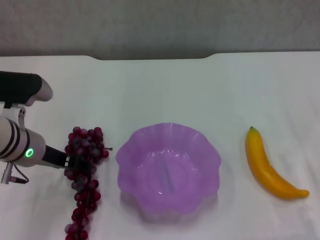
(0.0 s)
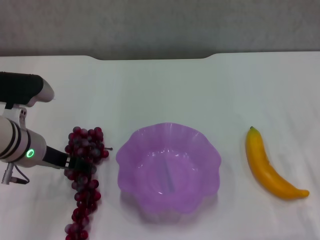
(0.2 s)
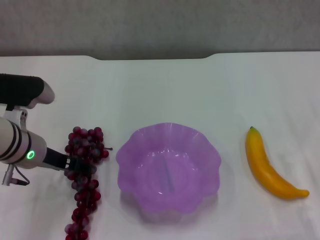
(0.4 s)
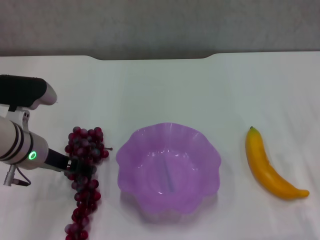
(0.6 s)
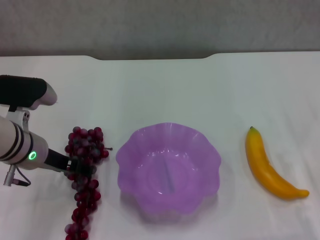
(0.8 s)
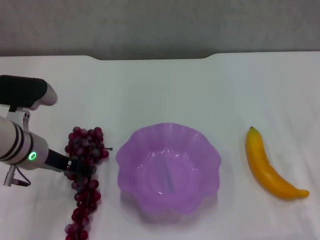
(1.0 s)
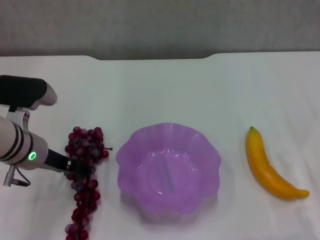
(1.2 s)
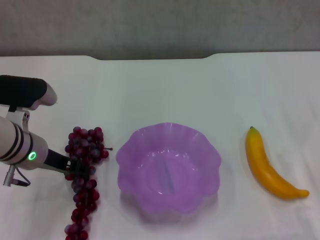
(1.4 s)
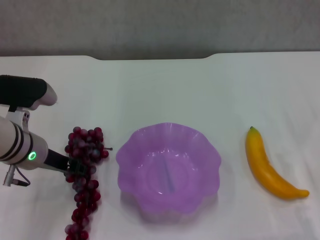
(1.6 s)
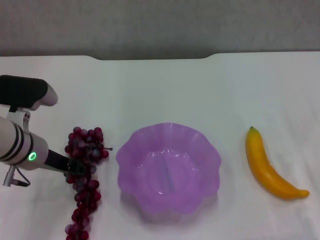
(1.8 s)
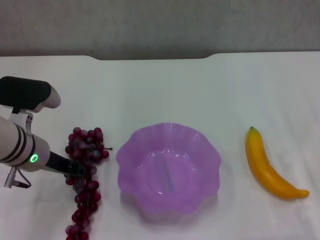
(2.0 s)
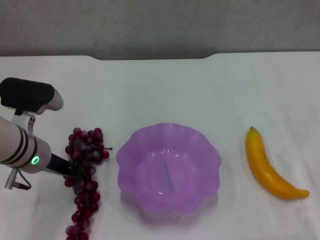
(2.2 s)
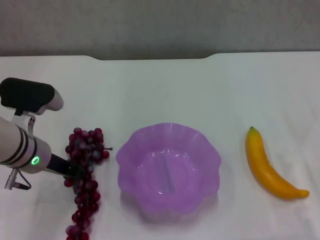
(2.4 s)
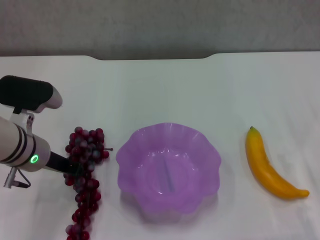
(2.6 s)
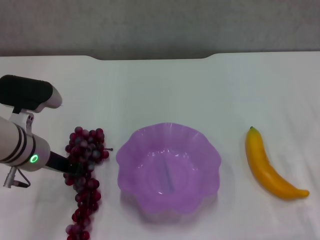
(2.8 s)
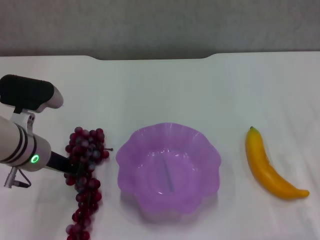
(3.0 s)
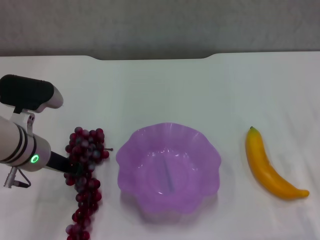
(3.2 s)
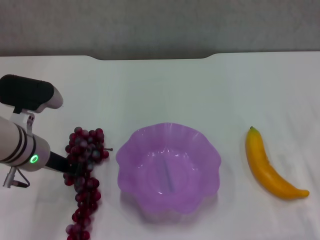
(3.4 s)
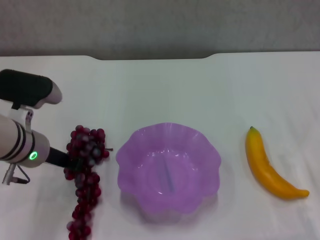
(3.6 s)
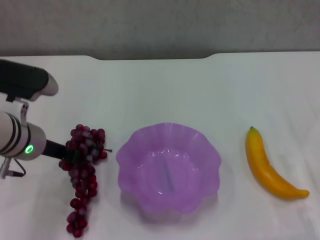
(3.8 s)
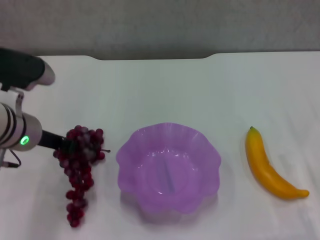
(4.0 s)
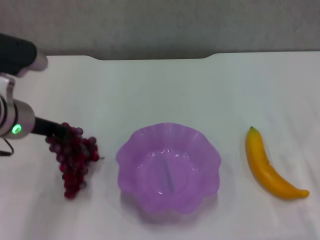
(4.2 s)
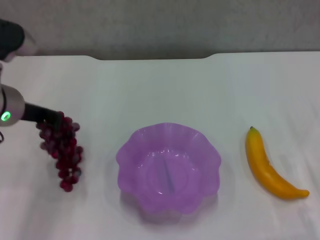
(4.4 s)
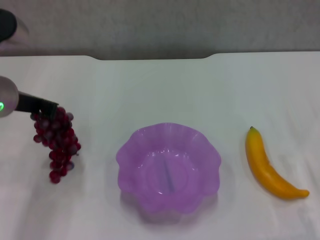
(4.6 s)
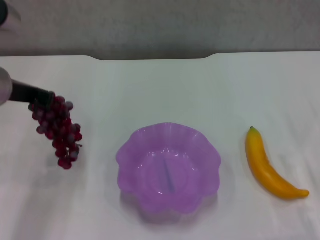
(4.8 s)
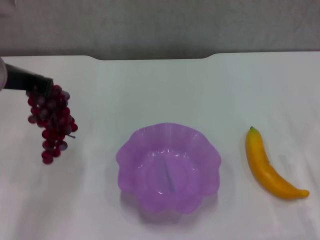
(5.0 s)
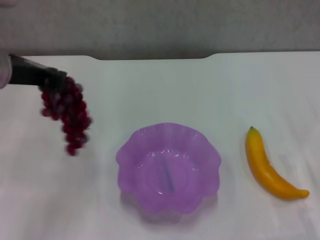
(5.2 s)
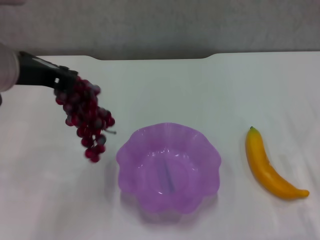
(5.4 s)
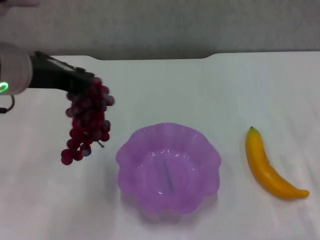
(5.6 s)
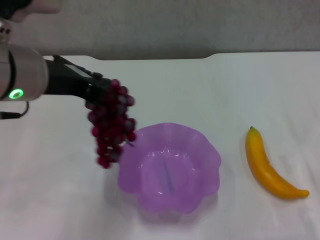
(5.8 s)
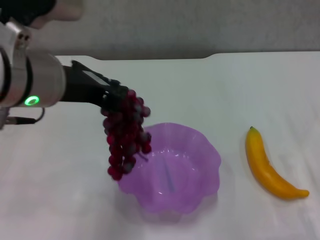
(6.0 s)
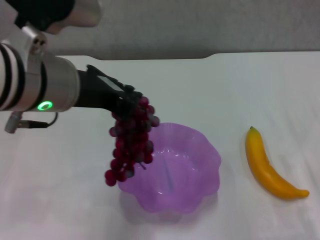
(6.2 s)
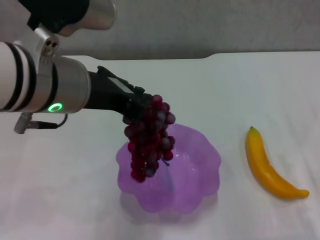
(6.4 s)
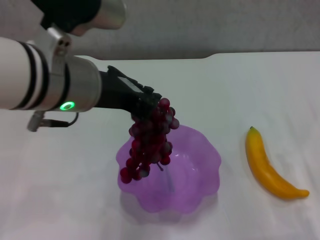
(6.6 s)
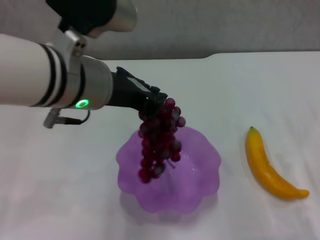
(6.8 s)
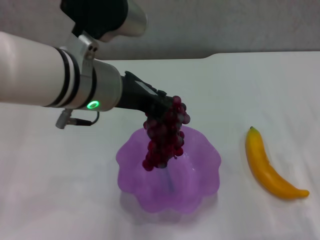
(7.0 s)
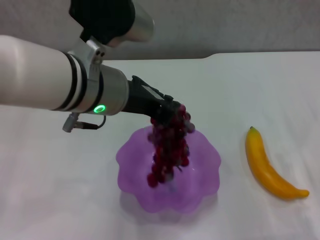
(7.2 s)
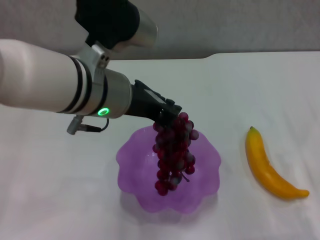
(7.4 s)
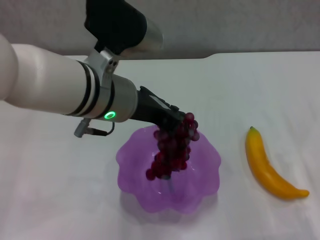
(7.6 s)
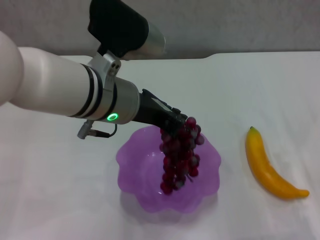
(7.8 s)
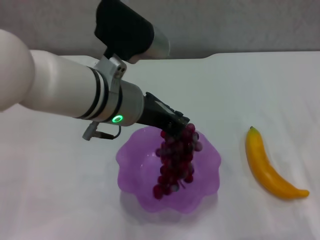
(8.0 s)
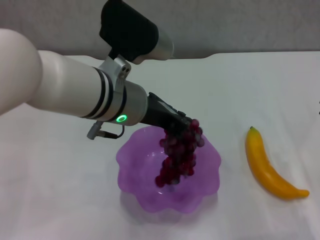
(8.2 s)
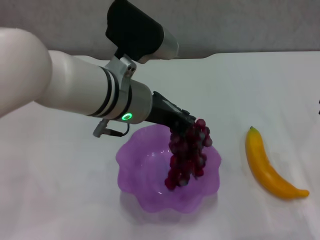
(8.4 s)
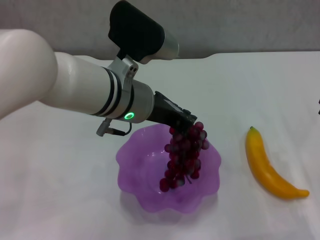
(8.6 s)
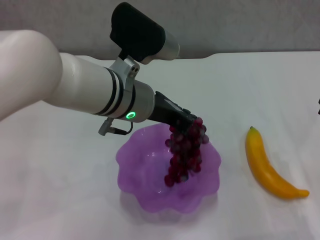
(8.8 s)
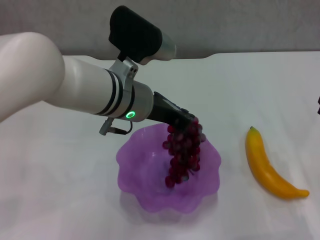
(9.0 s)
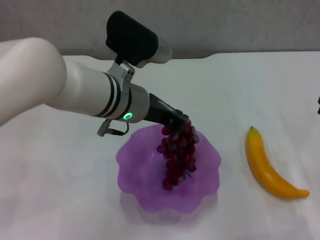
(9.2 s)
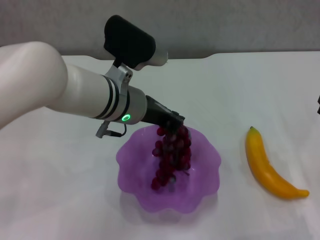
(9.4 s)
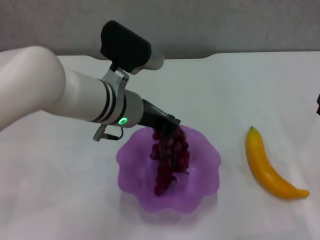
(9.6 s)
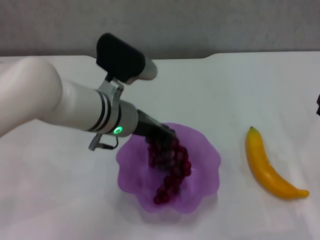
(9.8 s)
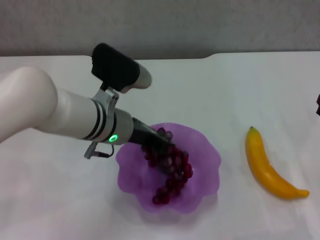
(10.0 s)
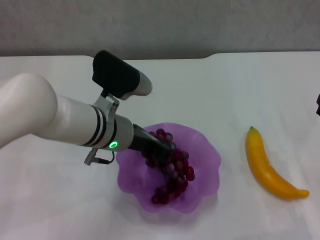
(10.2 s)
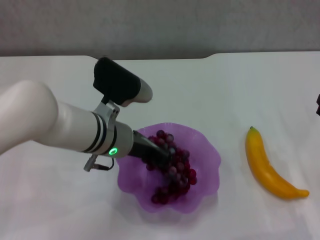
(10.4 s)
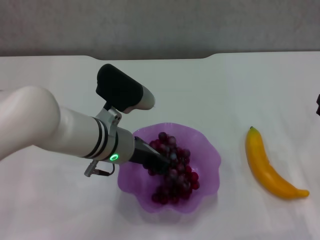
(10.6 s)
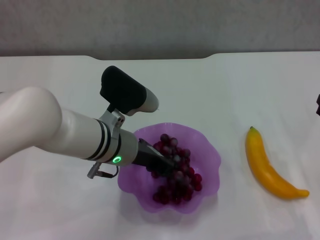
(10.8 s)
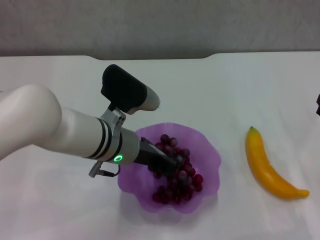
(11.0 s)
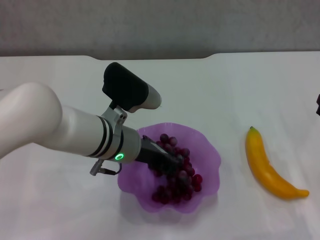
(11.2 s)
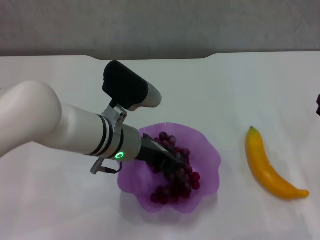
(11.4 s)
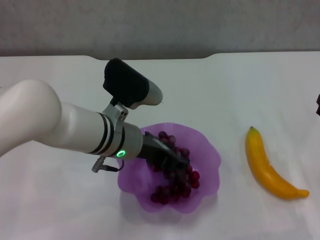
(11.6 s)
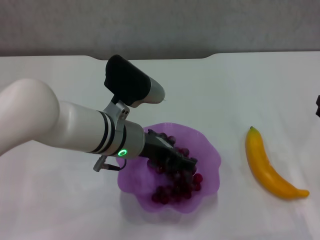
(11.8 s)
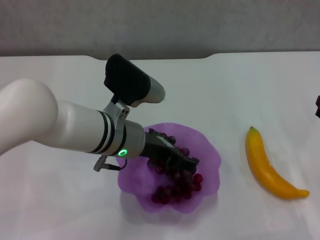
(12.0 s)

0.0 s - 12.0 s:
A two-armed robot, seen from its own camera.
Step, 0.0 s - 3.0 s: Grasp the grape with left gripper.
0.0 s - 1.6 s: Neither gripper changes place.
1.6 s - 3.0 s: The left gripper closes up.
3.0 s - 4.4 s: The left gripper travels upward by some 10 cm.
4.4 s - 6.0 s: The left gripper moves upward, to the right and backward, about 10 cm.
6.0 s - 7.6 s: The left gripper goes some 5 cm to the right.
7.6 s - 9.0 s: The left gripper shifts by some 5 cm.
9.0 s - 10.4 s: The left gripper heads downward, covering roughly 5 cm.
10.4 s - 12.0 s: The left gripper opens its fingers.

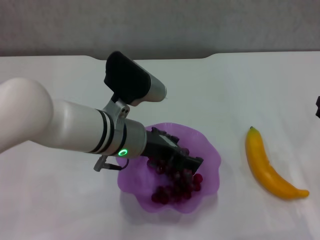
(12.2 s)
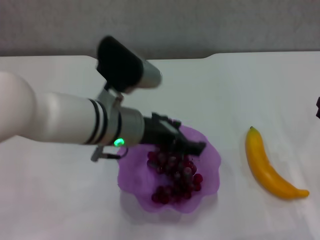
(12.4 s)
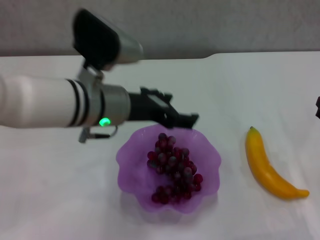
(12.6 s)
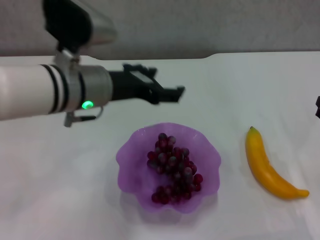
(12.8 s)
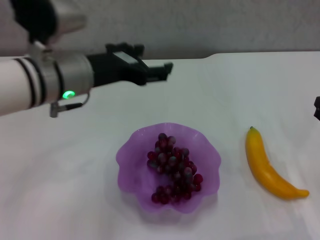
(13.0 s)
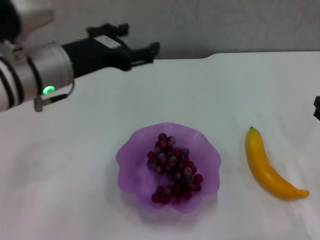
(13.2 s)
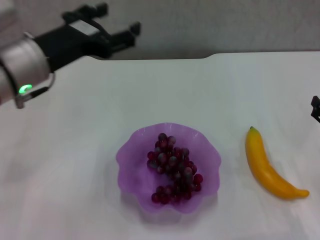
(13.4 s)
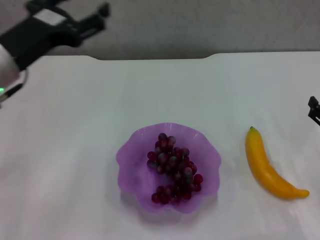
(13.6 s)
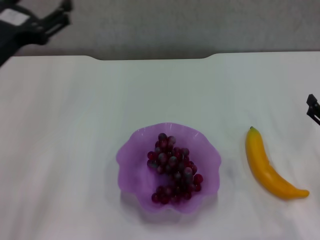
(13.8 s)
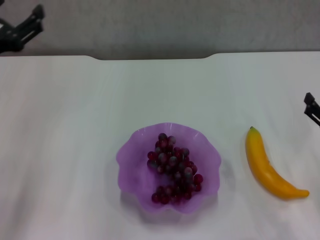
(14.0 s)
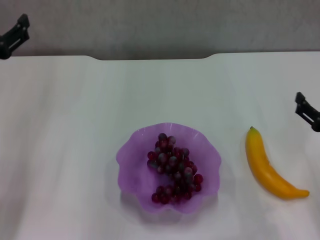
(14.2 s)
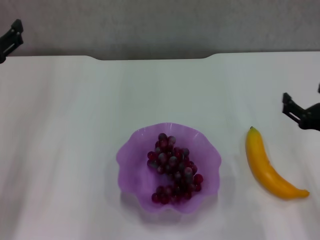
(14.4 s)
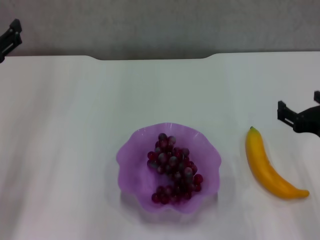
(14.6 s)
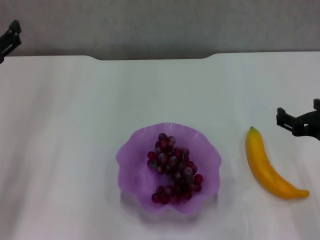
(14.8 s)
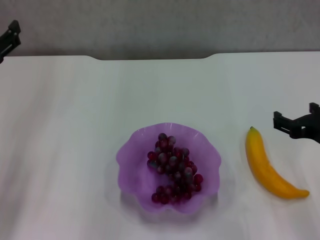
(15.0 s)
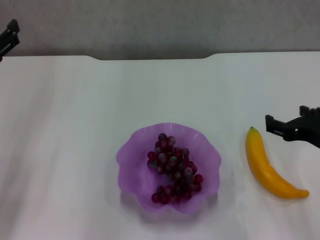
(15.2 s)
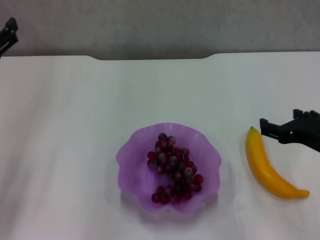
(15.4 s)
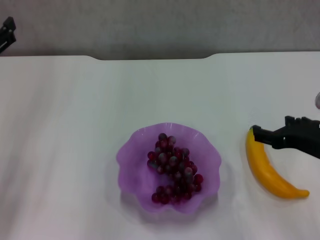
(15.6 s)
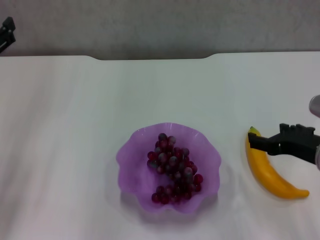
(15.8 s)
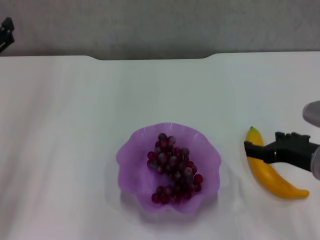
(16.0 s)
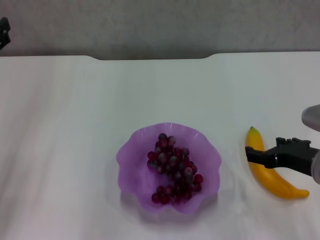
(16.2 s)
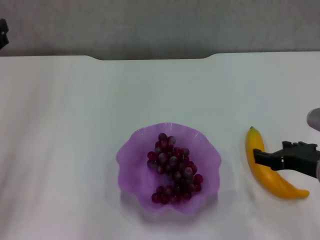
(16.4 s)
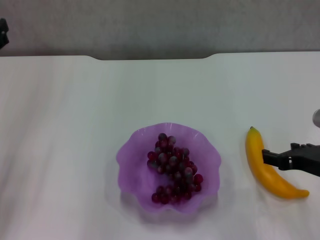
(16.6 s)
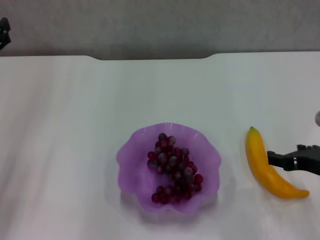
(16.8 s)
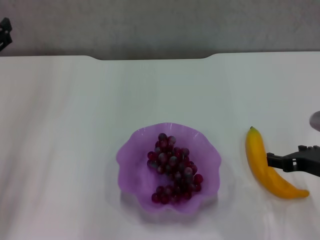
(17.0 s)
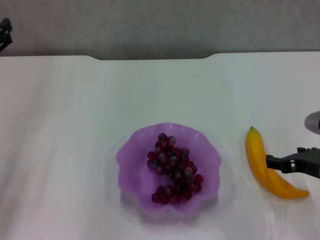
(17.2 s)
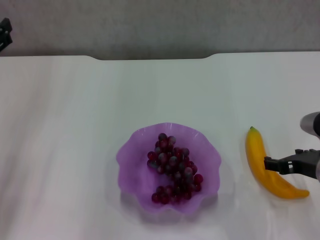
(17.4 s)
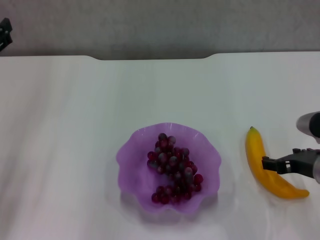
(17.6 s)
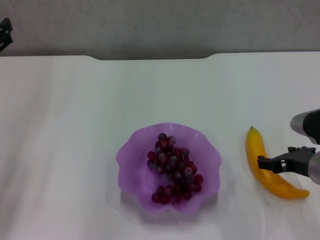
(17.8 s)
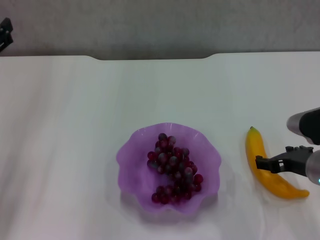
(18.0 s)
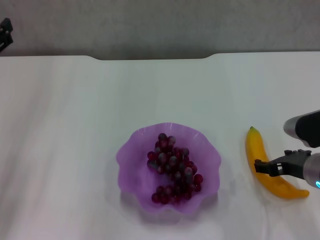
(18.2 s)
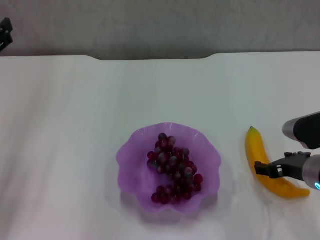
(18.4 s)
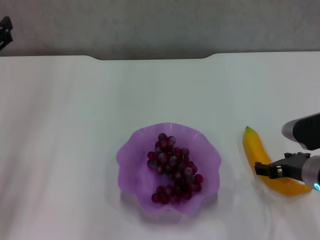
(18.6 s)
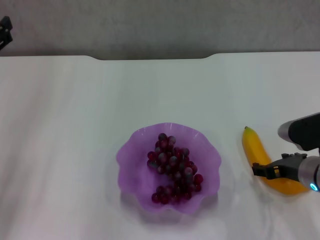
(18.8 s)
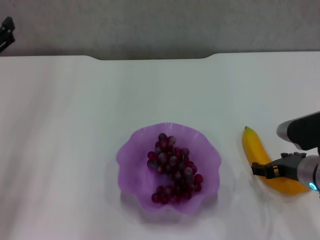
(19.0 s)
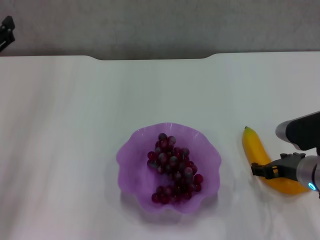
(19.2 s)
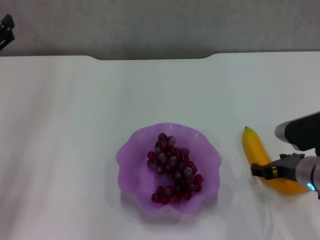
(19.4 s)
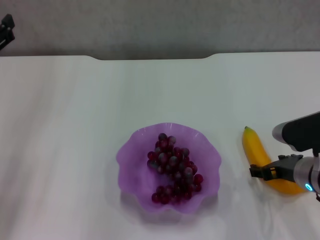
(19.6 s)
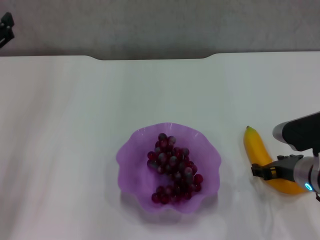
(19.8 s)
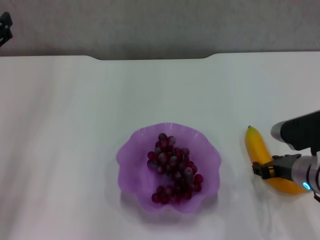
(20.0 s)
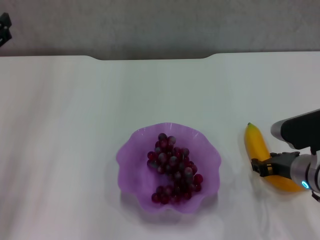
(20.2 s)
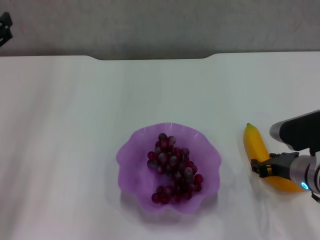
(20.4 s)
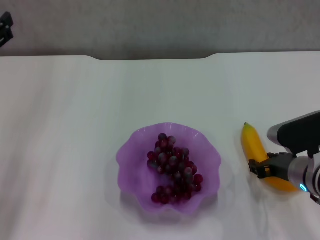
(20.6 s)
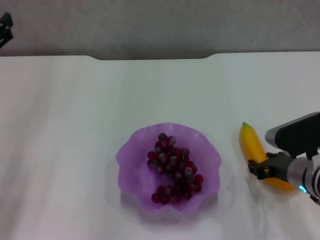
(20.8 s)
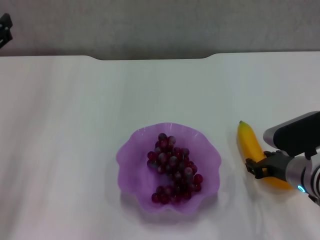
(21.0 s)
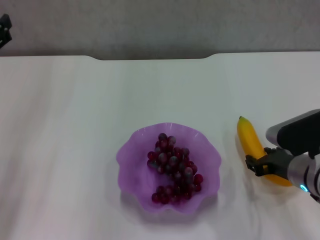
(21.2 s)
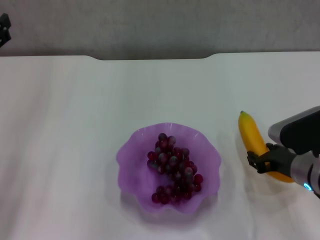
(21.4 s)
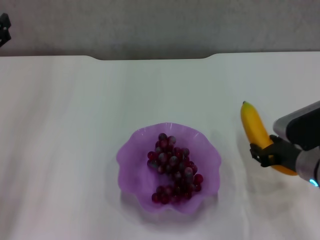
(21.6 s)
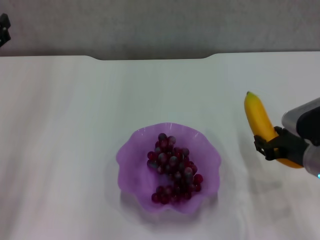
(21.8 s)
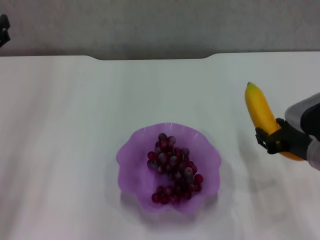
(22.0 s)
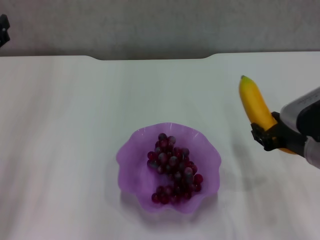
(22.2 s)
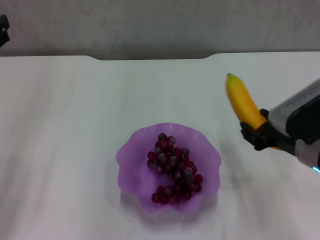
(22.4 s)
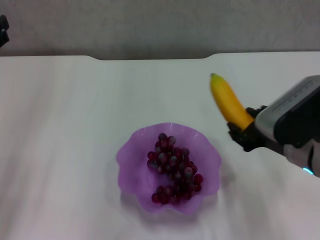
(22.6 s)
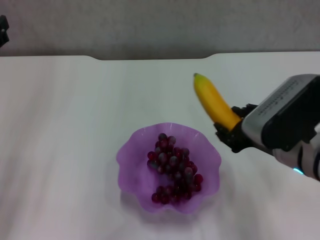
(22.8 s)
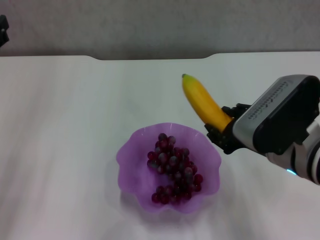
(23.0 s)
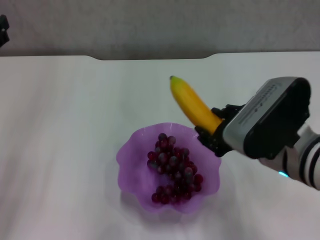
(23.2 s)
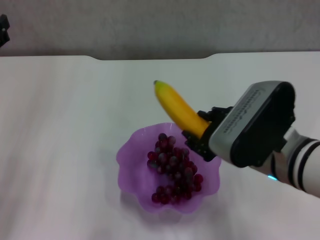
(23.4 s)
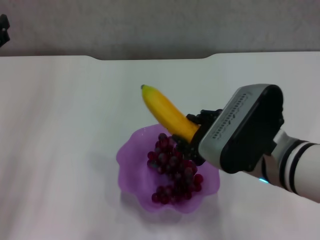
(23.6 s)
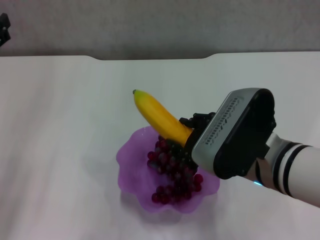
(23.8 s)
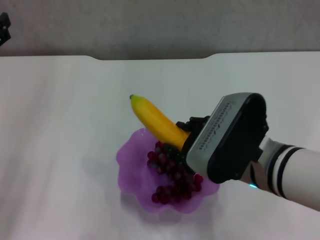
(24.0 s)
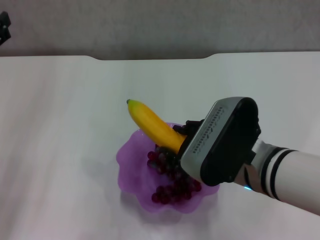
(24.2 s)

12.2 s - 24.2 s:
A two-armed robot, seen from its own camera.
Step, 12.8 s - 20.2 s: Grasp the banana with right gripper.
12.2 s - 13.8 s: The left gripper is displaced to the left by approximately 20 cm.
13.8 s - 15.2 s: The left gripper shifts by approximately 5 cm. The right gripper moves to the left and upward, some 10 cm.
15.2 s - 16.6 s: The grippers stay close to where they were, moving slightly.
16.6 s - 18.2 s: There are only small adjustments of the grippers.
18.2 s - 19.8 s: There are only small adjustments of the grippers.
19.8 s - 21.2 s: The right gripper closes up.
21.2 s - 22.6 s: The right gripper is displaced upward by about 10 cm.
22.6 s - 24.2 s: The right gripper goes approximately 10 cm to the left.
